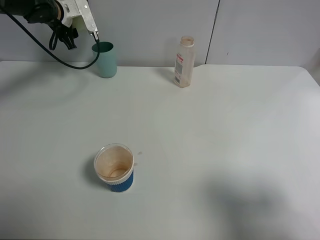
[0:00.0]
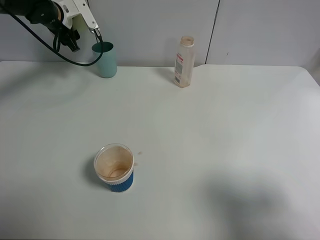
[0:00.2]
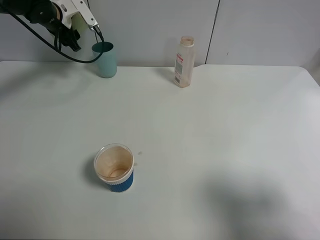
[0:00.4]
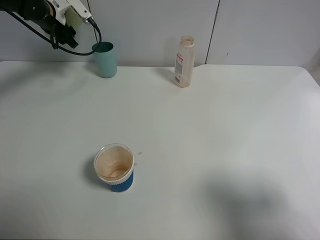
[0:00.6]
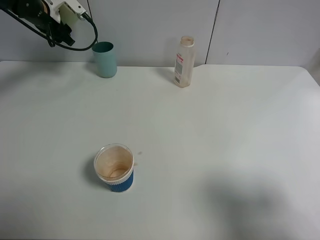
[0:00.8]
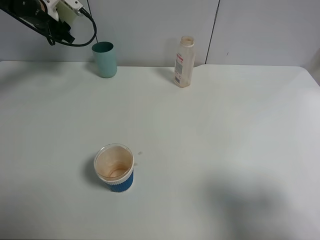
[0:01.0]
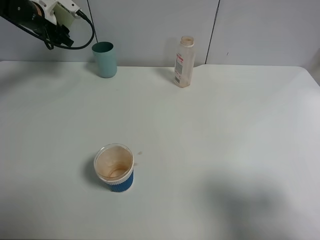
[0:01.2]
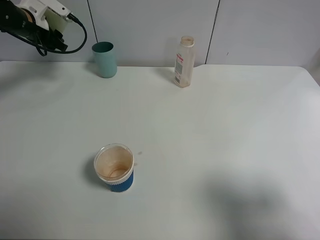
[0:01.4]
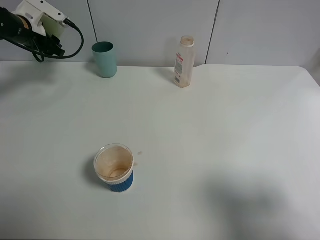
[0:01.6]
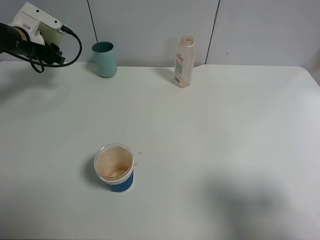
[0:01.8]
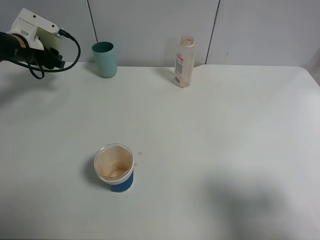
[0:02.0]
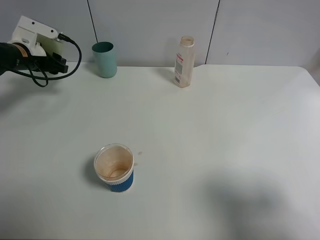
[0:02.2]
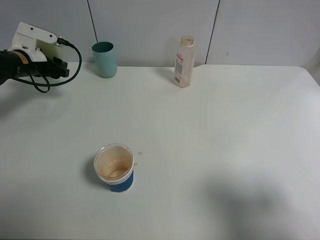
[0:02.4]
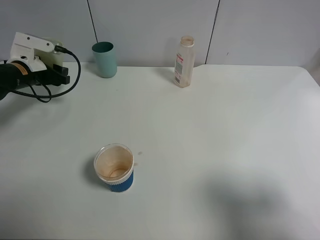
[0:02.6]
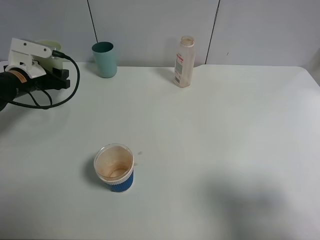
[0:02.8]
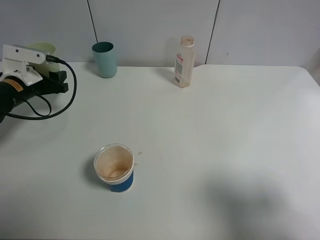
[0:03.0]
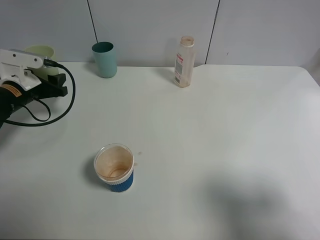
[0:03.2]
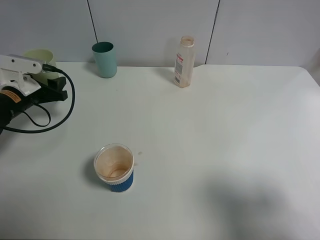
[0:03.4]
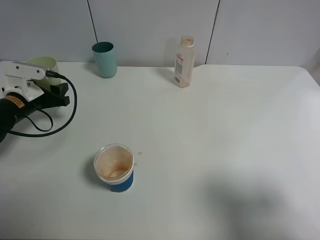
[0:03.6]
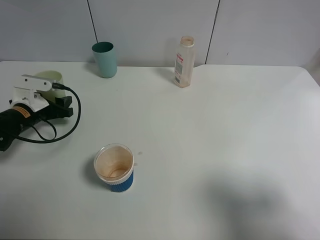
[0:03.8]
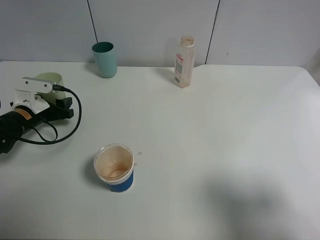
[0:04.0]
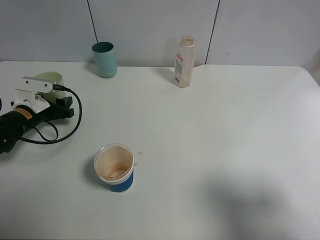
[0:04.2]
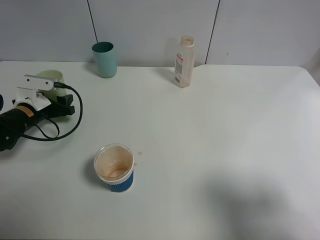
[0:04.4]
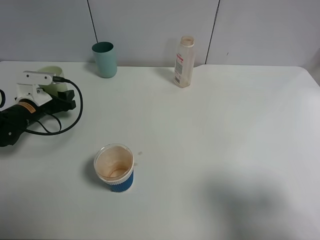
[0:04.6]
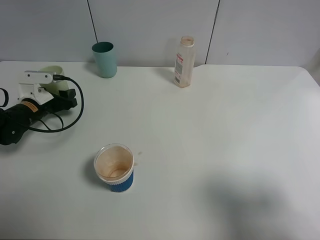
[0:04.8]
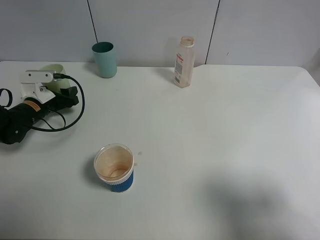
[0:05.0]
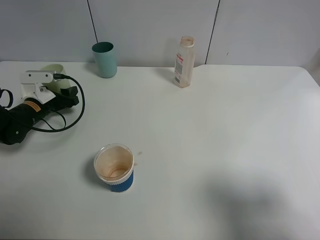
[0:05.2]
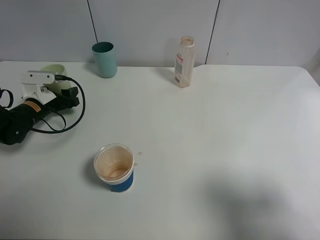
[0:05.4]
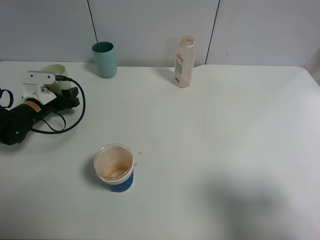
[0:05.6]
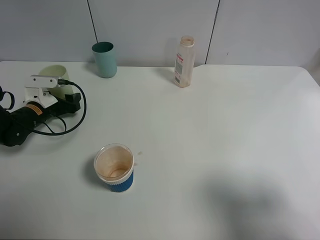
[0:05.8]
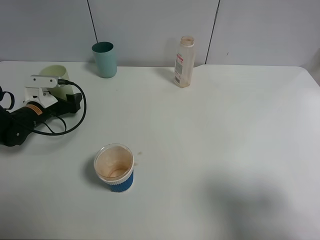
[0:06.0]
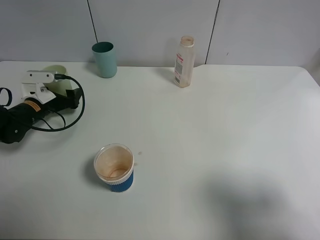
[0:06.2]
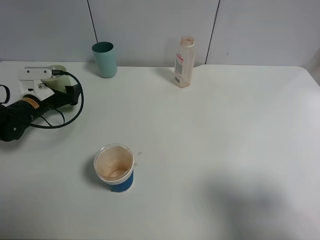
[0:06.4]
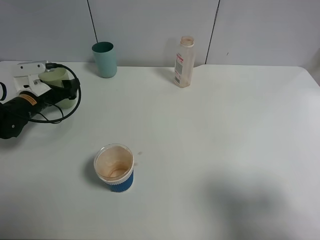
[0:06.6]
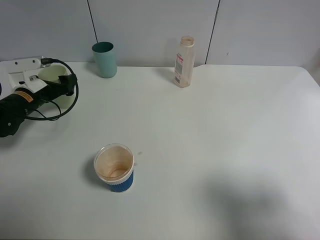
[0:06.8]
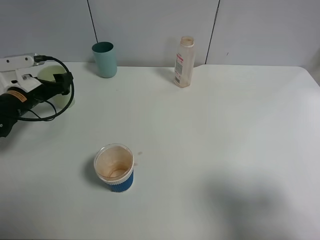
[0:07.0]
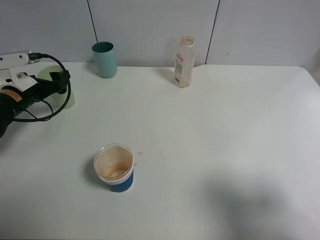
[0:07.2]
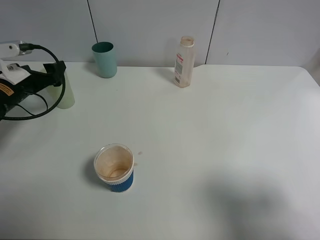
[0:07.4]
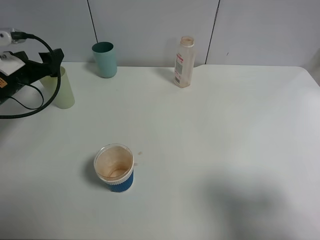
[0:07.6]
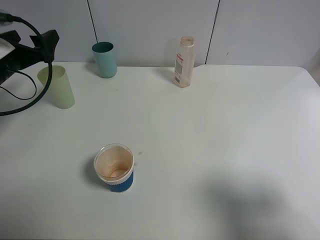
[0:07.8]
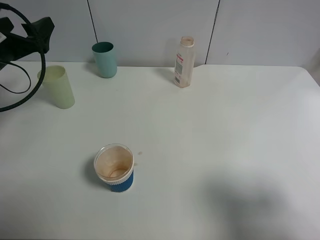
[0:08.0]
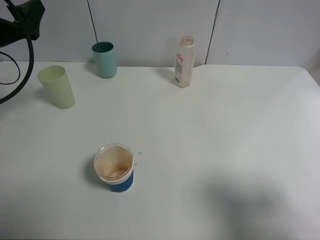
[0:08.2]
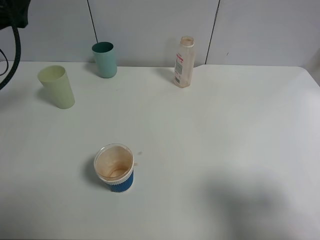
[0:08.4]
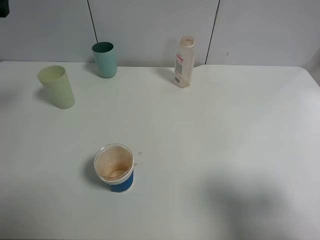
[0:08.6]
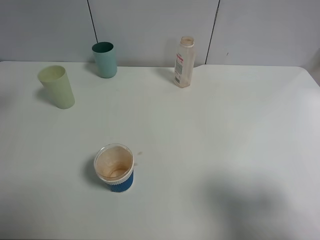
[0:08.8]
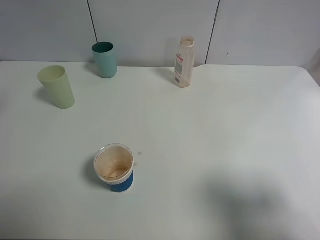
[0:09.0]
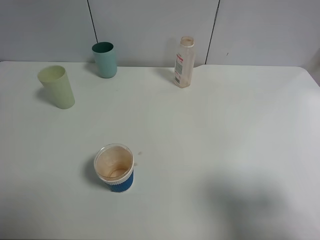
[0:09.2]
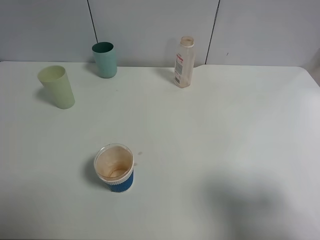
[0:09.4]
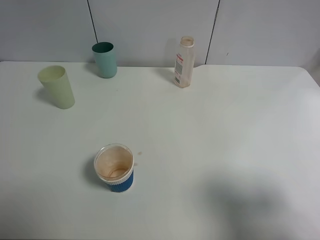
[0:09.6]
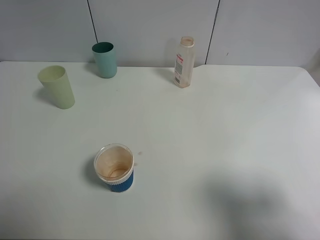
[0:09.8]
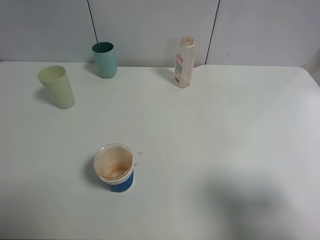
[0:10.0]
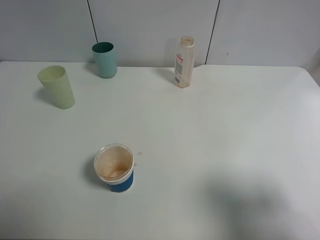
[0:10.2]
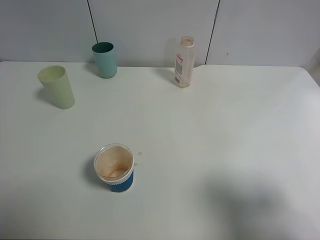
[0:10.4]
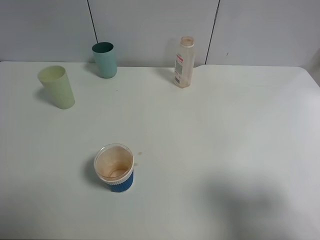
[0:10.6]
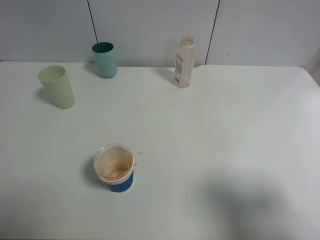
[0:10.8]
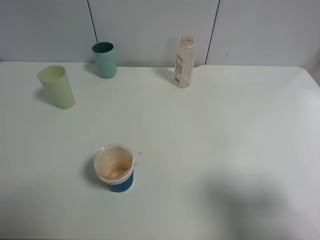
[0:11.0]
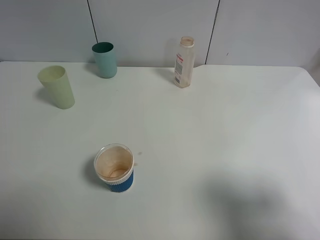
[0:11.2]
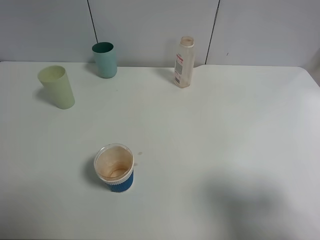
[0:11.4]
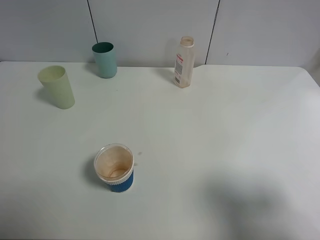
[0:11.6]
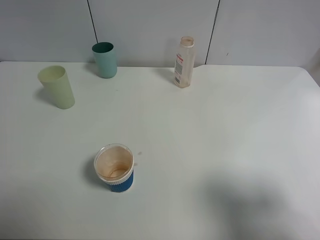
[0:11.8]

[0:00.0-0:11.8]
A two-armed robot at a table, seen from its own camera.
Task of the whole recording: use a clamp to hold the bottle of the drink, pour the beverage into a random cup, then clamp the cup containing the drink and pour the drink into another random cup.
Step, 0:00.0 to 0:07.0: Place the green plastic cup on the table with left gripper.
0:00.0 to 0:01.4: The left gripper travels to the left by about 5 cm.
0:01.4 to 0:03.0: The left gripper travels backward and downward by about 15 cm.
0:03.0 to 0:04.4: The left gripper heads downward, covering about 5 cm.
0:04.4 to 0:06.0: The left gripper opens up.
0:06.0 to 0:07.4: The left gripper shifts about 10 cm upward, and opens up.
0:07.4 to 0:08.8: The left gripper goes approximately 20 cm upward and backward.
